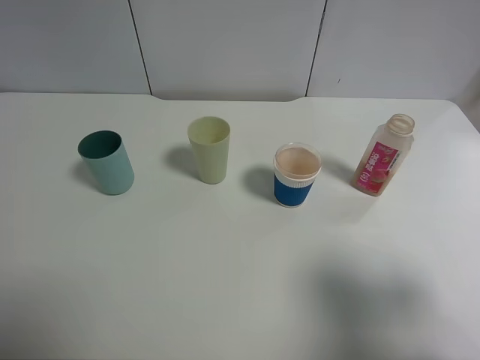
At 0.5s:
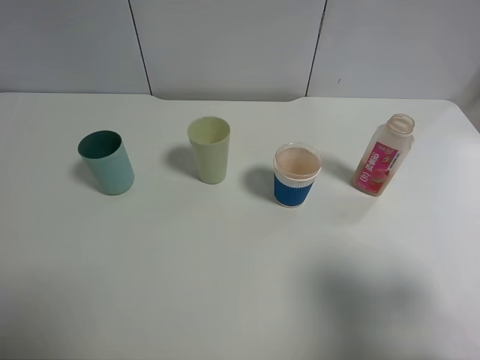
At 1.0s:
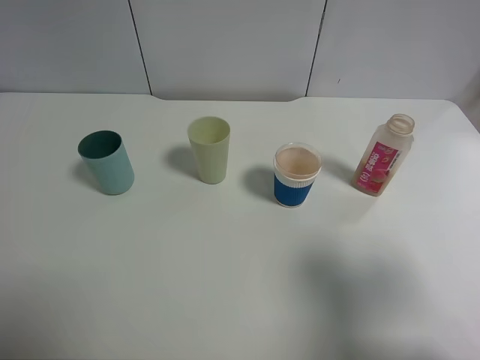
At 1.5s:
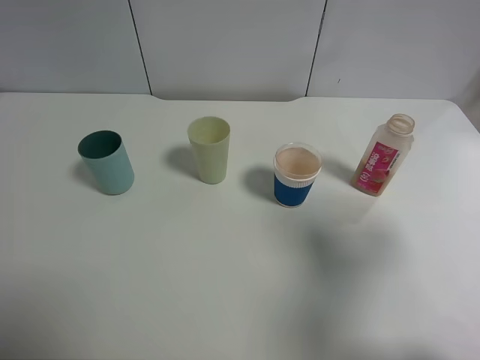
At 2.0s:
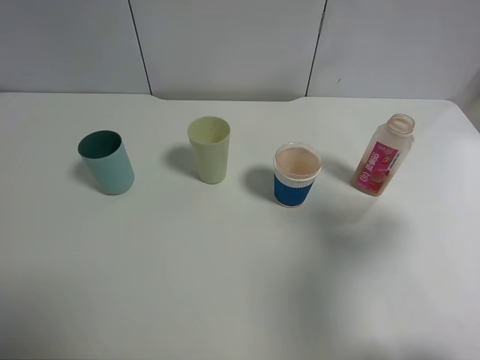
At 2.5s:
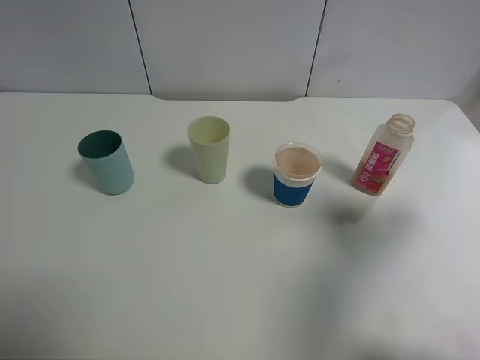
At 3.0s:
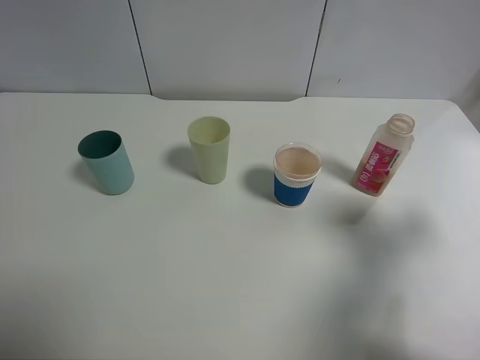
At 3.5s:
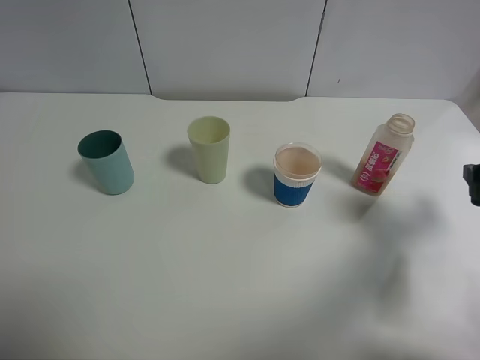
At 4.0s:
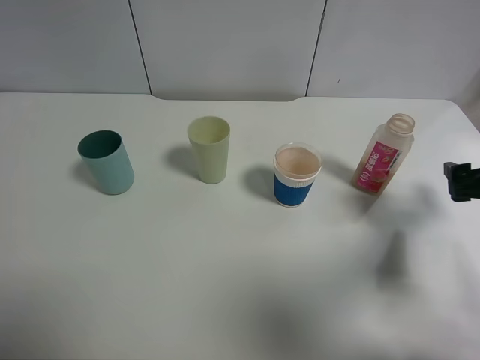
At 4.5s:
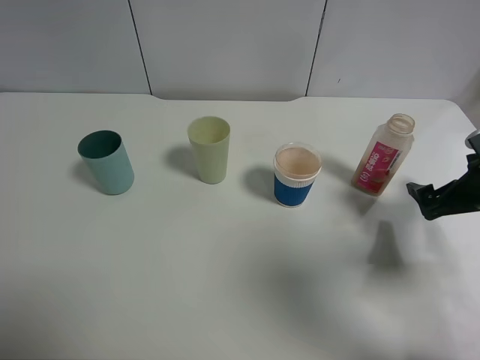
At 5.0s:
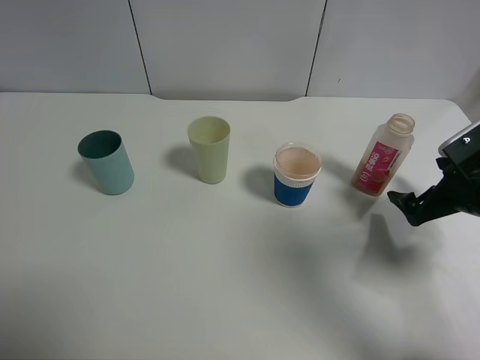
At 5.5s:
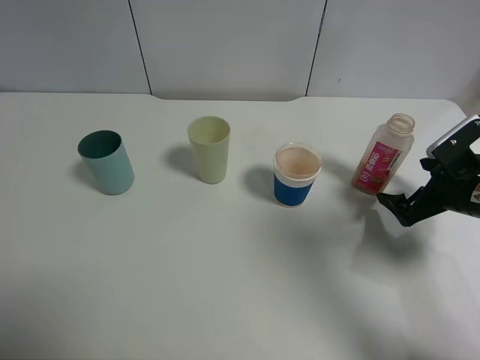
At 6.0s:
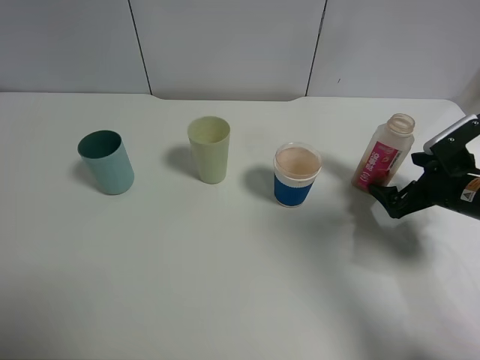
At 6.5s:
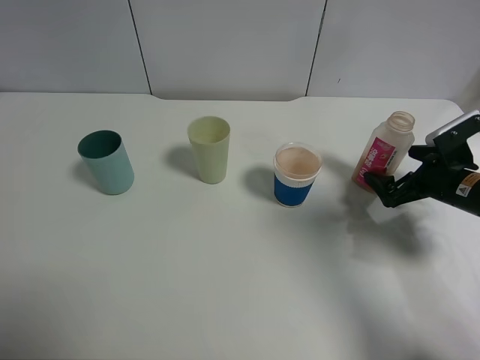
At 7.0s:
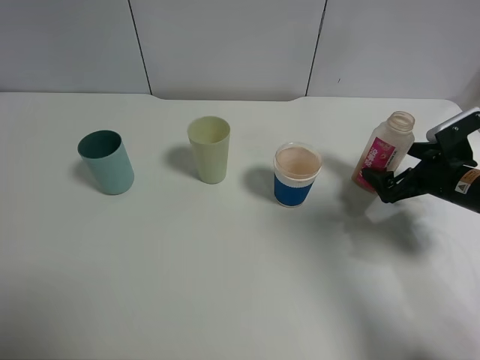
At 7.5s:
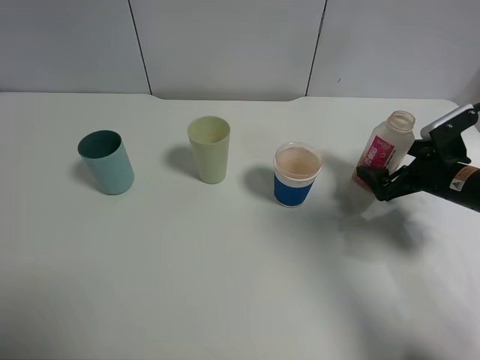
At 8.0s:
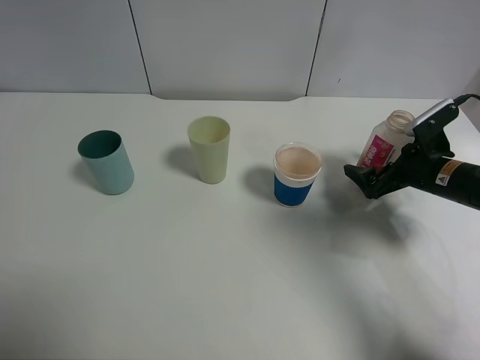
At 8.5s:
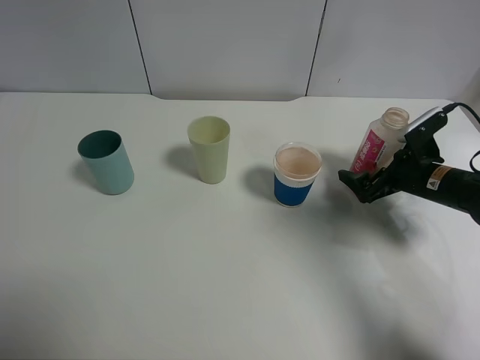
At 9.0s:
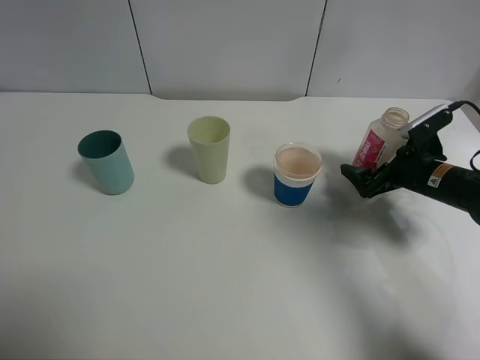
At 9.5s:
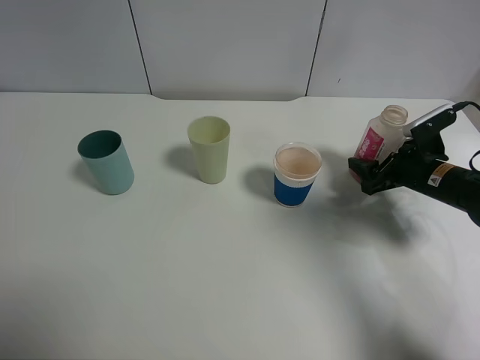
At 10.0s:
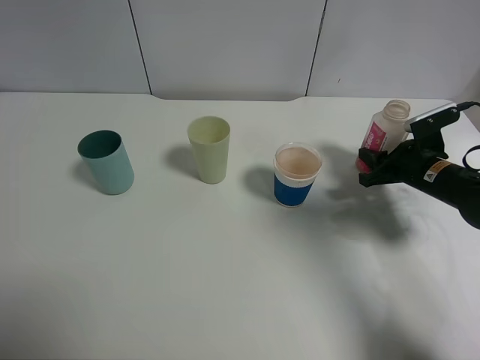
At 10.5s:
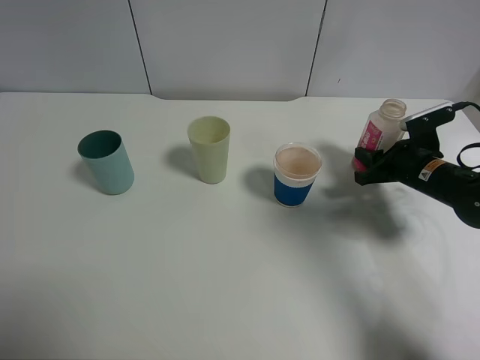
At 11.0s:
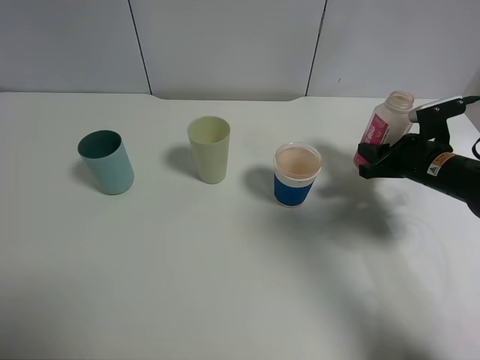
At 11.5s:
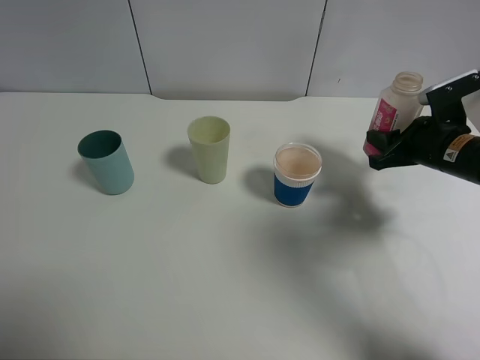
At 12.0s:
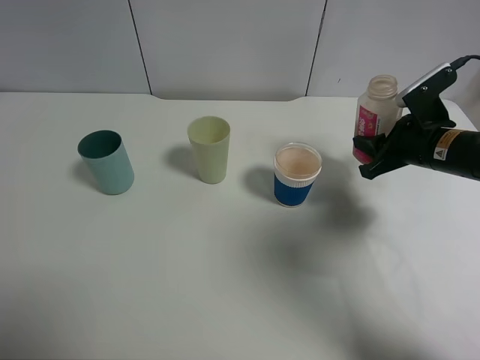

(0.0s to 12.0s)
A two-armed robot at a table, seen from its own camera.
Task of the whole recording: use a clamp to hold the bottle of the drink, pour the beverage into a random cup, then clamp the cup containing the drink and pour the drink into another random cup.
Step, 0.0s - 11.0s: Pick up the drink bottle with right gripper.
0.0s - 2.0s: The right gripper heads forward, covering roughly 10 cm.
2.0s - 4.0s: The right gripper moves downward and forward, some 15 cm.
4.0s - 6.0s: The right gripper travels downward and forward by some 10 cm.
6.0s - 8.0s: There are only small adjustments of the grippers.
8.0s - 10.0s: The right gripper closes its fingers.
10.0s - 12.0s: The right gripper moves upward, about 5 cm.

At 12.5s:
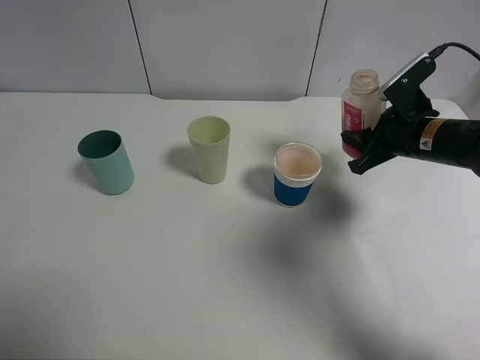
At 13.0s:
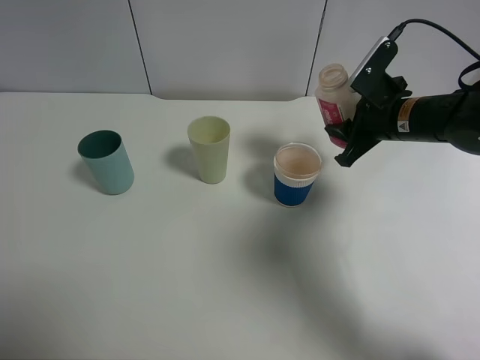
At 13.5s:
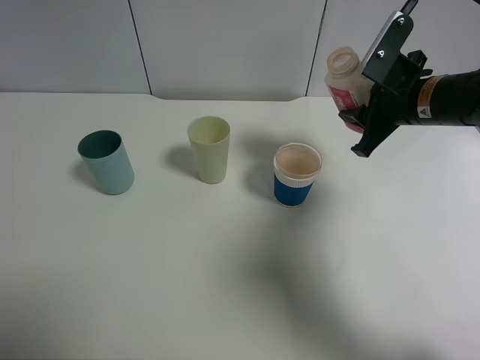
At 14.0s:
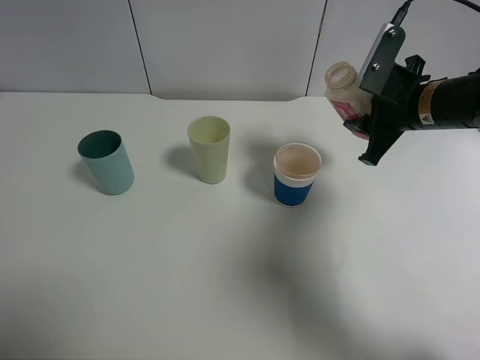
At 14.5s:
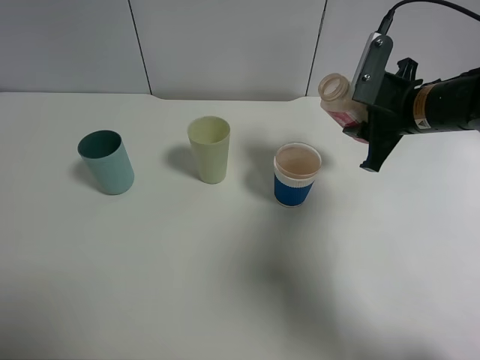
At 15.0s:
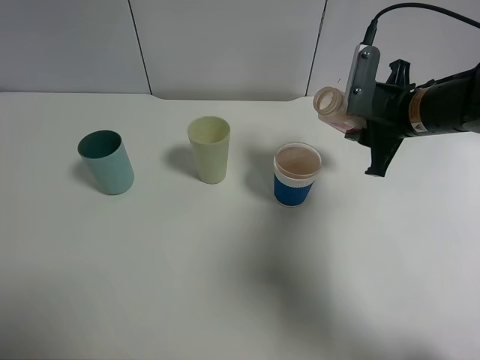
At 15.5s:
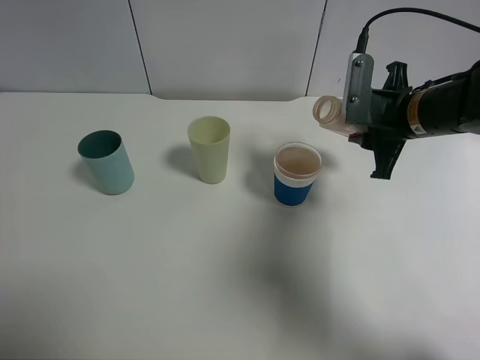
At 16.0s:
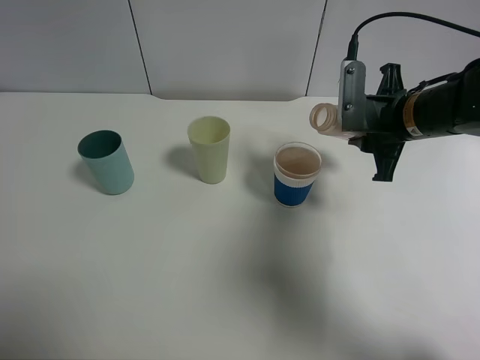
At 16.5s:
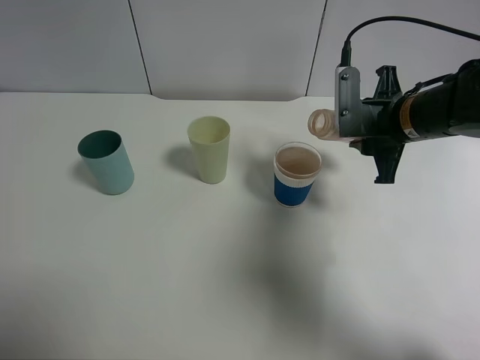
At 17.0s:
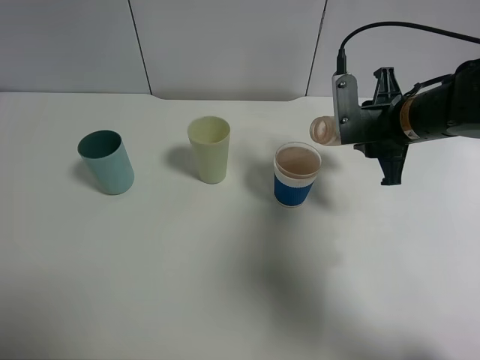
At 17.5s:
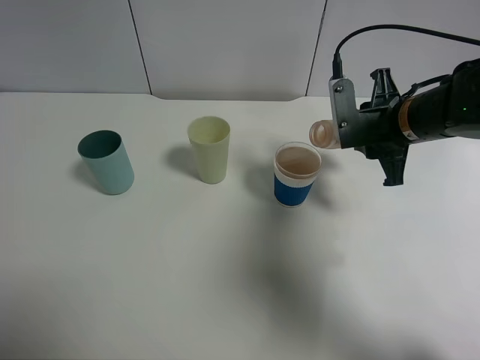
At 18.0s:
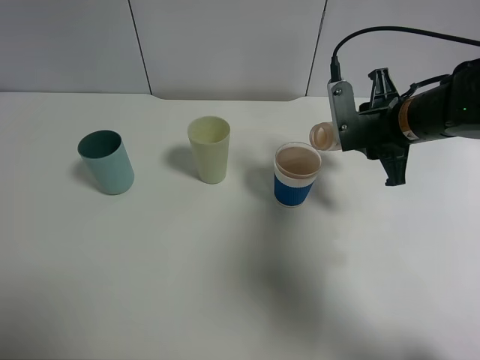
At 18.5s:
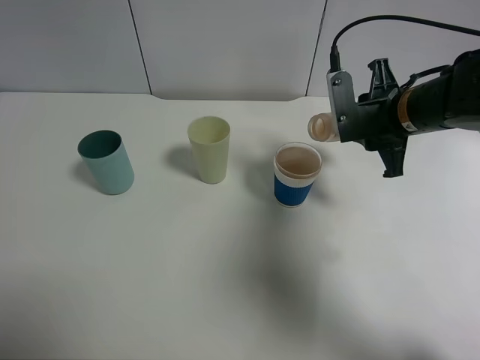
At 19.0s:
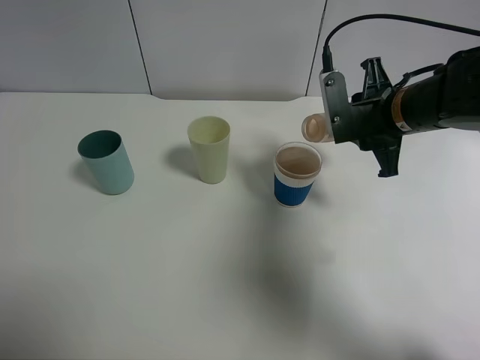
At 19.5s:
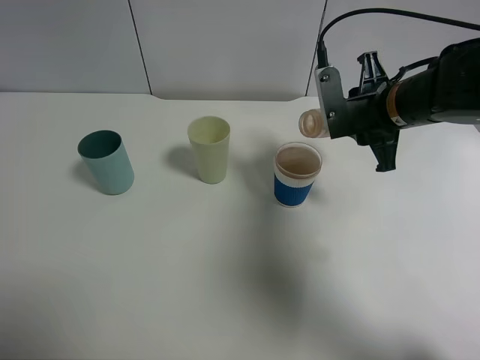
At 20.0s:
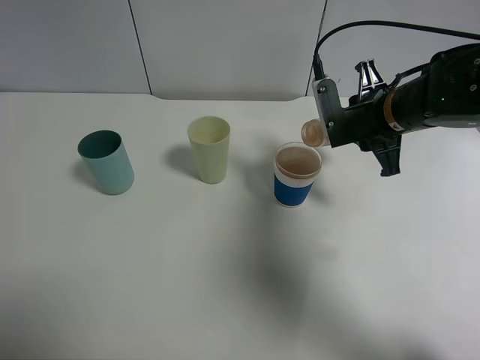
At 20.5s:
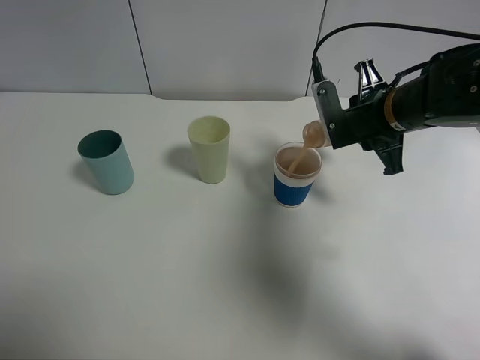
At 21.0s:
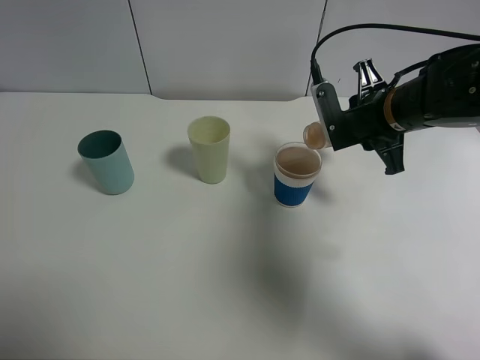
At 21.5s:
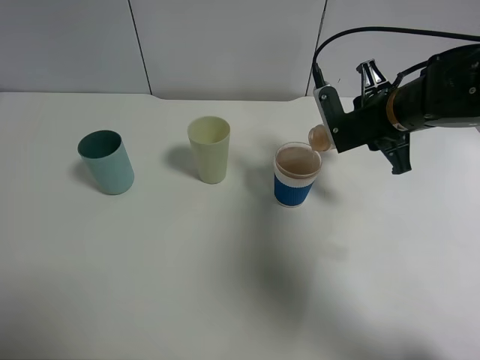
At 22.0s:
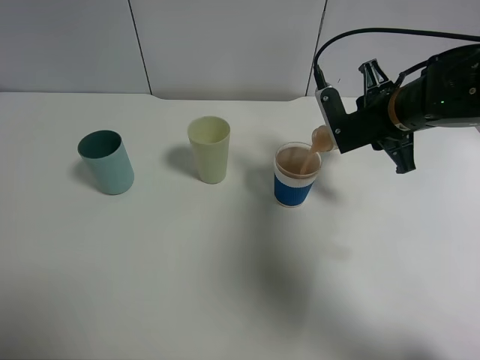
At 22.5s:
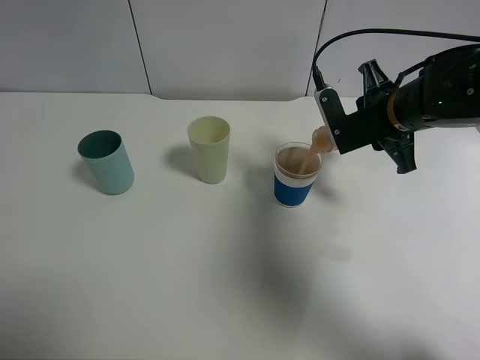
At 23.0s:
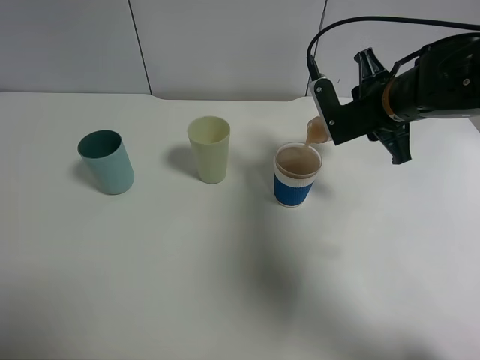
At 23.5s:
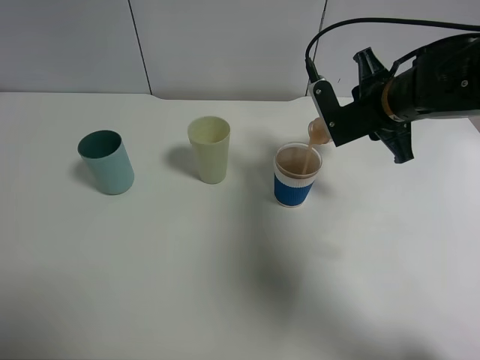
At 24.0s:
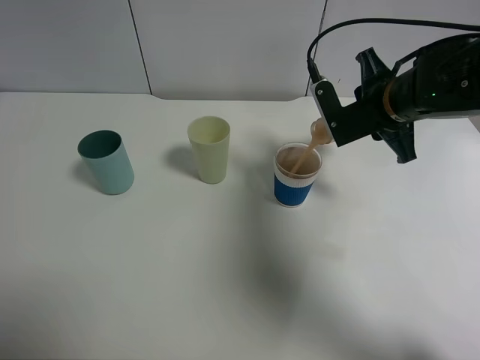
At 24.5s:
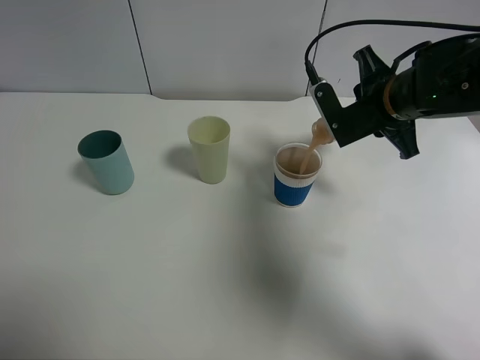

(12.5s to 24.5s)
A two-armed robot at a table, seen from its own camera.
Task of the whole recording: use a clamp to hold the bottle of the drink, pour the beverage into a random cup, then clamp the cup containing the drink and pour the drink into another random cup.
12.5s - 14.5s: The right gripper changes place by some 5 cm.
16.5s - 20.5s: There are only small adjustments of the grippers.
20.5s - 24.5s: There are only small adjustments of the grippers.

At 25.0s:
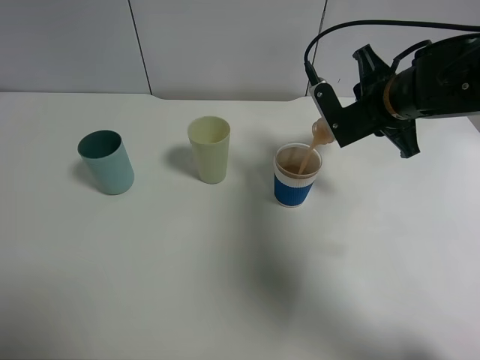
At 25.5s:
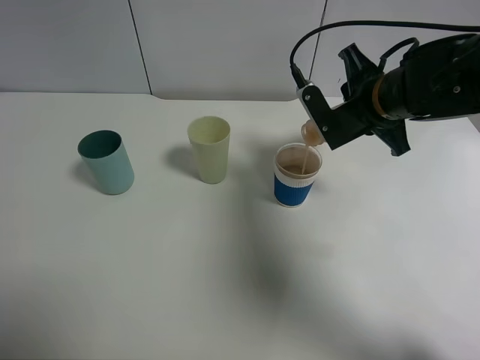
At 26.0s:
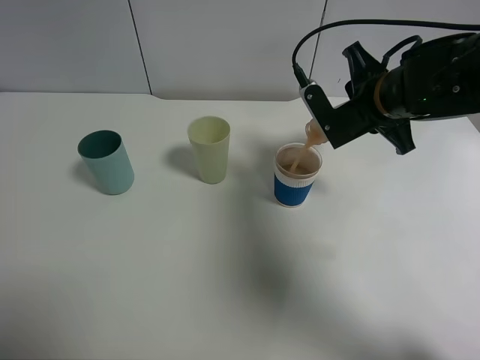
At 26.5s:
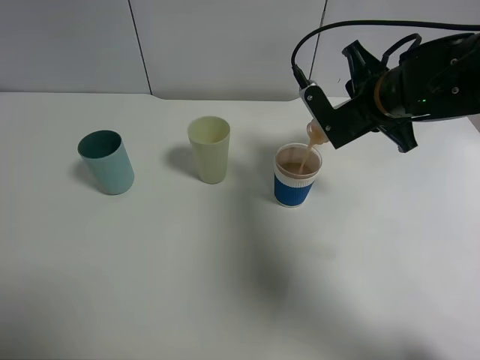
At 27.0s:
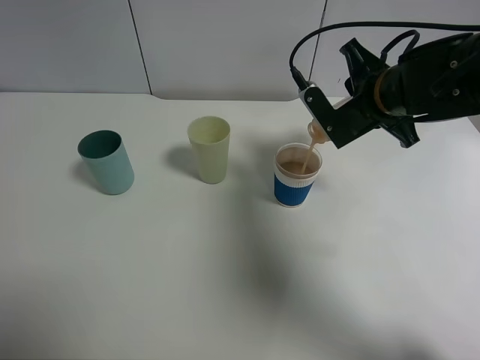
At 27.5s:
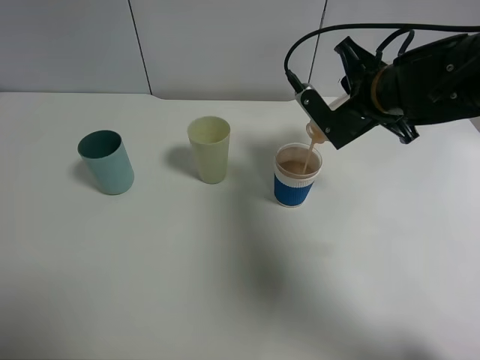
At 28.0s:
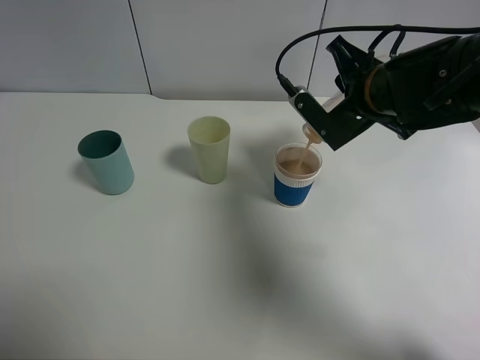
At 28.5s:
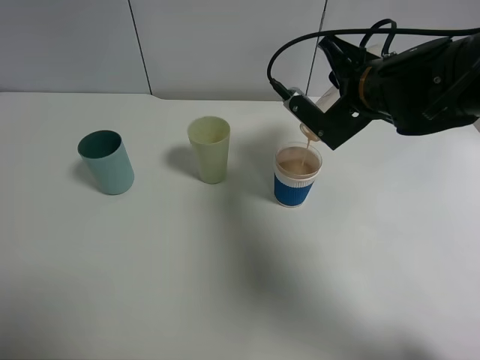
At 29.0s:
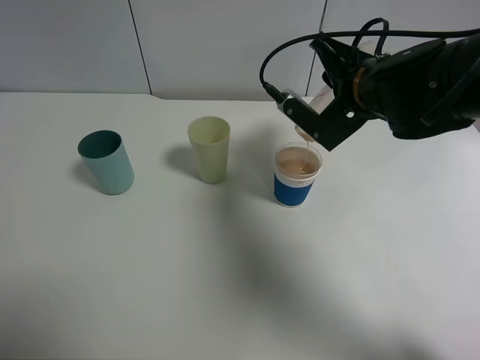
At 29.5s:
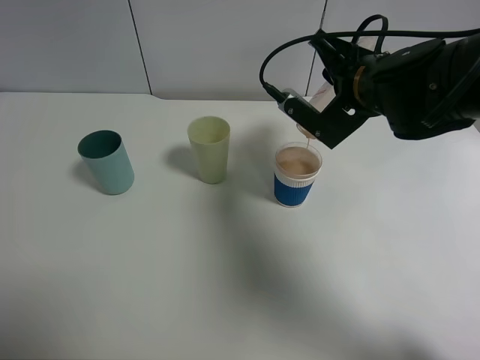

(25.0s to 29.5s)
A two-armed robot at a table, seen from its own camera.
Task of the whole recording: use a clamp to hold the bottle of the drink, pour the beverage into a random cup, then clamp the cup containing the drink and pour the drink into another random cup.
25.0s - 27.0s: The grippers move only a little.
